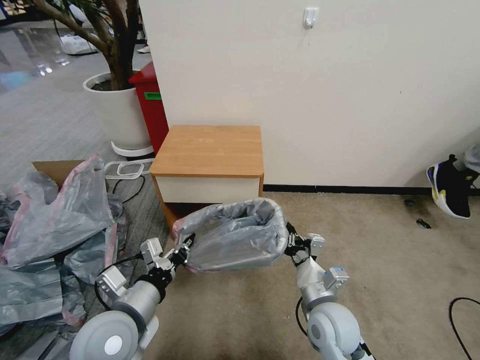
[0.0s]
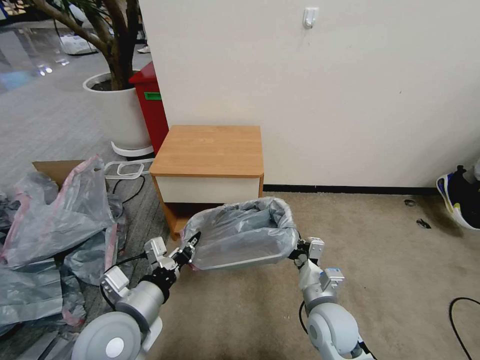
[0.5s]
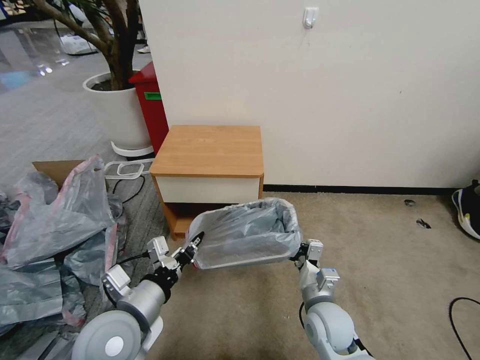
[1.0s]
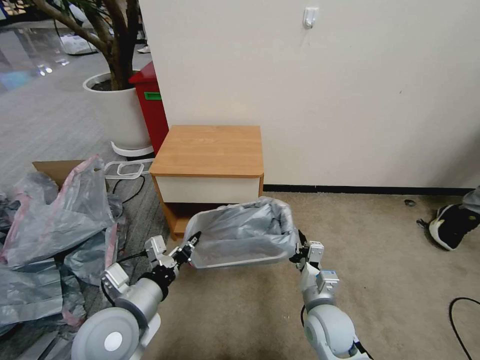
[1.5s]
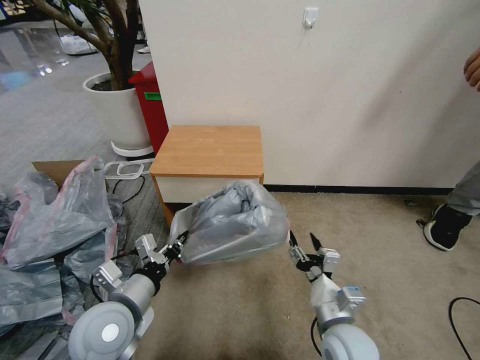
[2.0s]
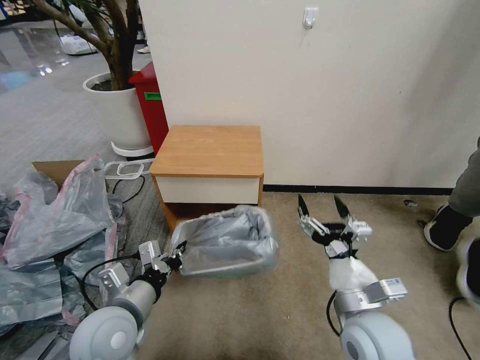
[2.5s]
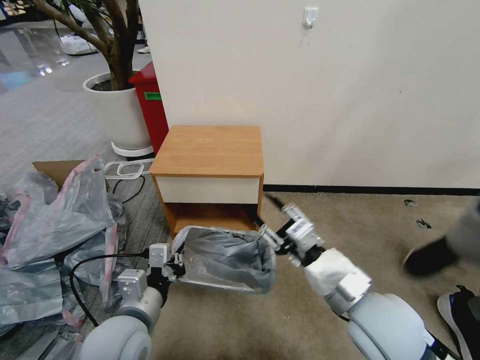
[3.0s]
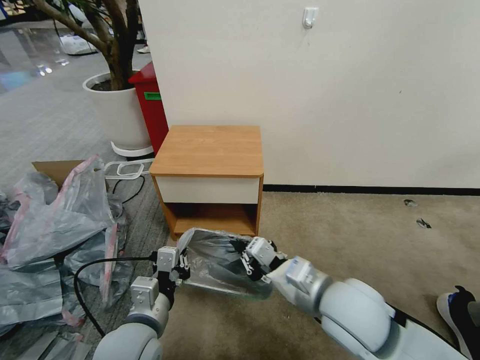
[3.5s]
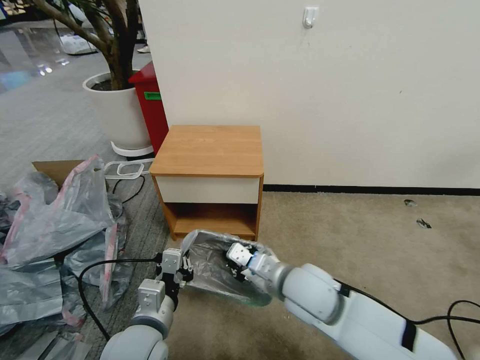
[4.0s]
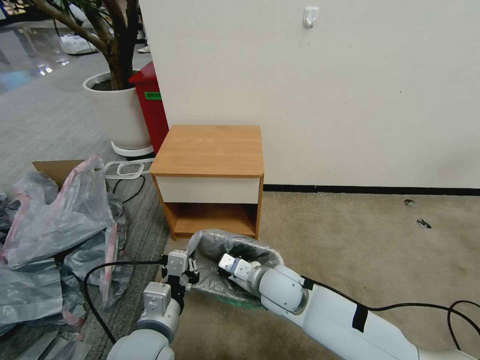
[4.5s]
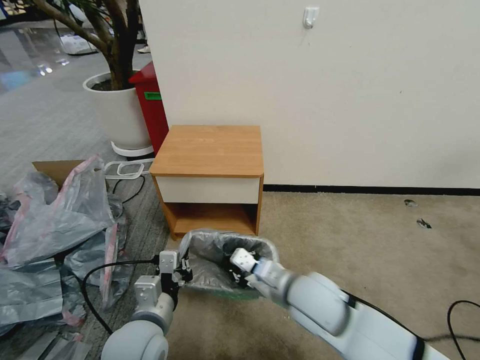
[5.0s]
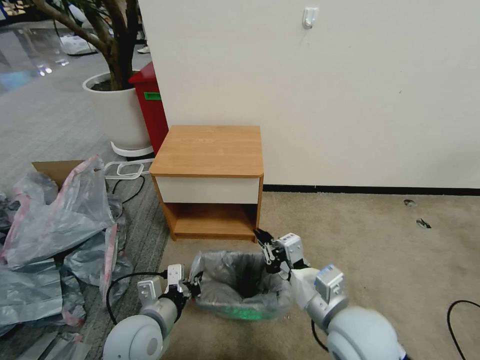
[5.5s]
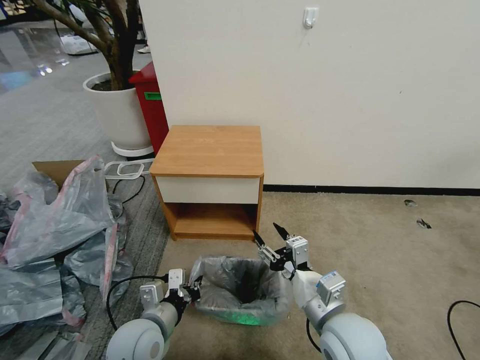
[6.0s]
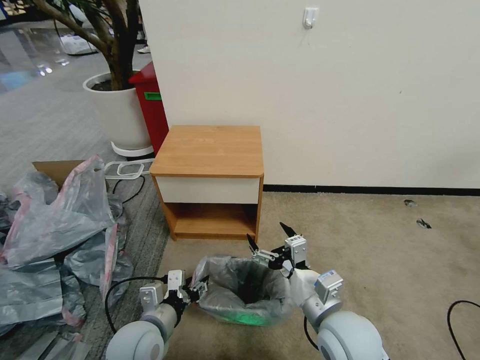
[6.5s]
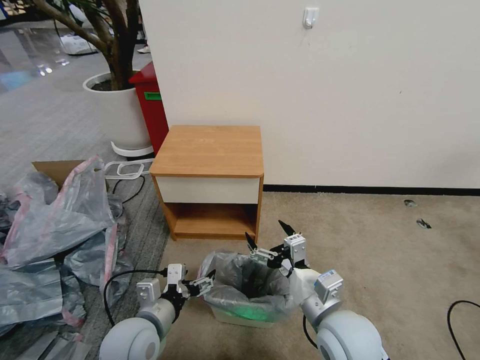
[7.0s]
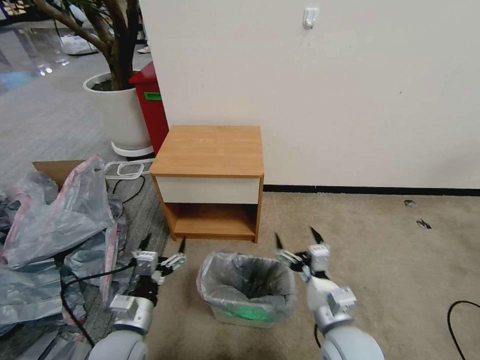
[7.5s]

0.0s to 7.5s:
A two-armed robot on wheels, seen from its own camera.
Task of the whole recording: Pick up the garbage bag from the table and place it over the trash can.
0.0s to 2.0s: The right gripper opens its fingers.
2.0s to 4.0s: The left gripper moves to the right, roughly 5 cm; the right gripper shifts about 15 cm to the left, forward and upward, and closes its fingers.
4.0s to 5.5s: The right gripper is displaced backward and to the right by roughly 10 cm, while the left gripper shifts by about 5 cm.
5.5s to 7.5s: The right gripper is displaced downward by approximately 10 cm, and opens its fingers. The left gripper ends up about 5 cm from where it was, and opens.

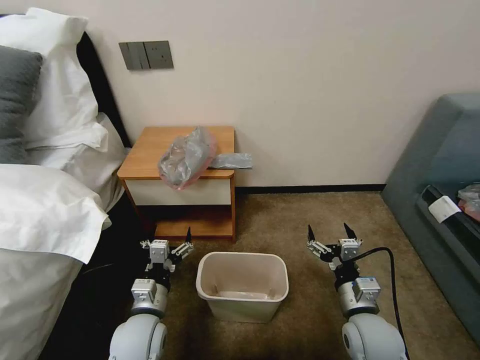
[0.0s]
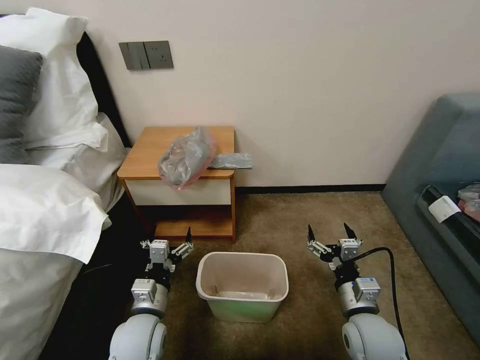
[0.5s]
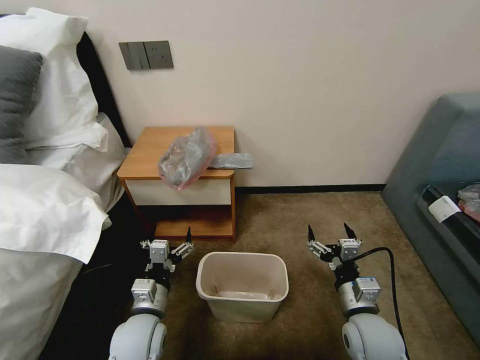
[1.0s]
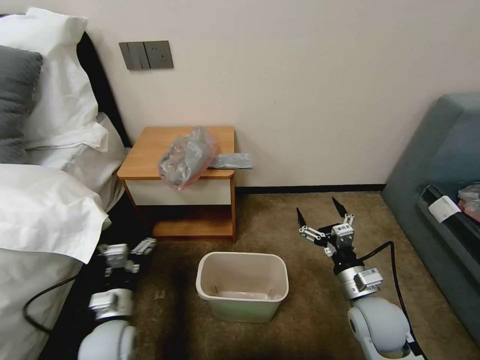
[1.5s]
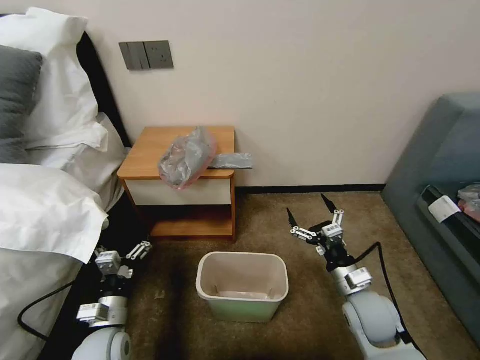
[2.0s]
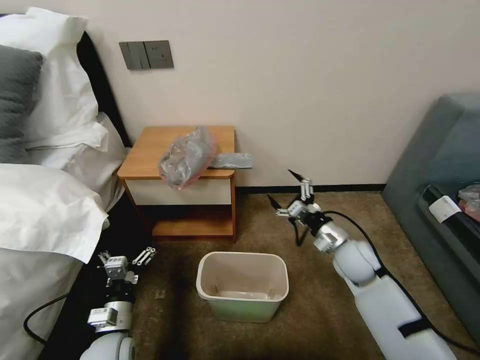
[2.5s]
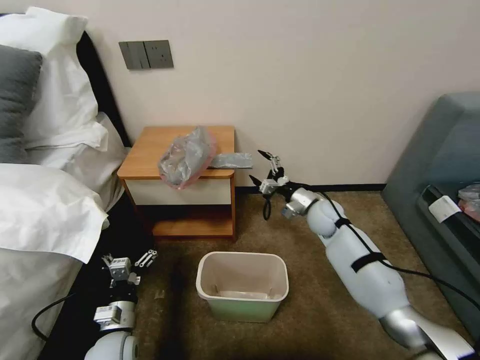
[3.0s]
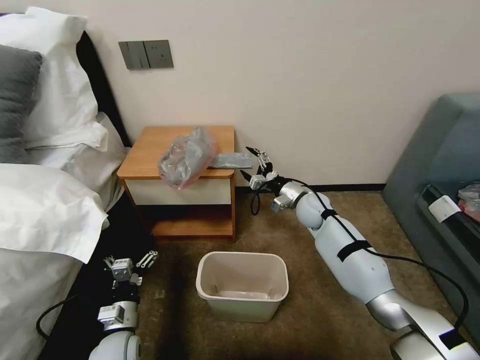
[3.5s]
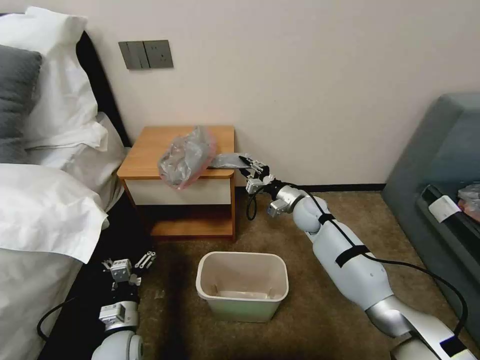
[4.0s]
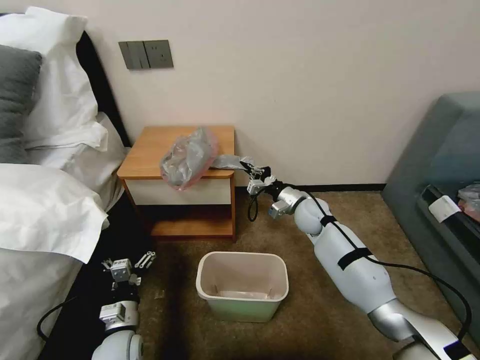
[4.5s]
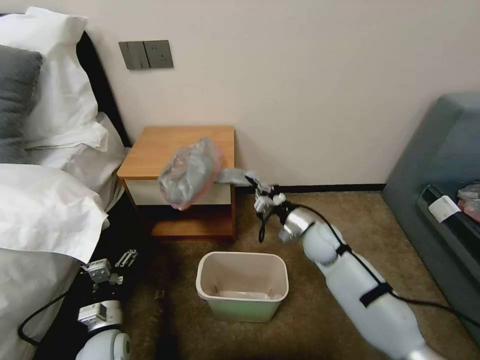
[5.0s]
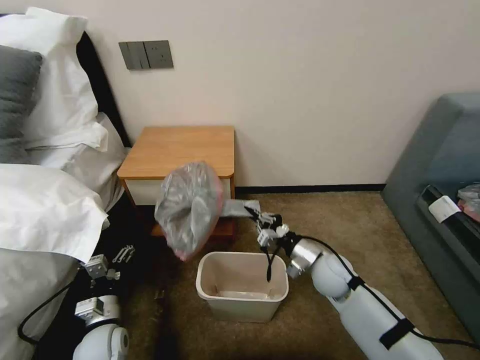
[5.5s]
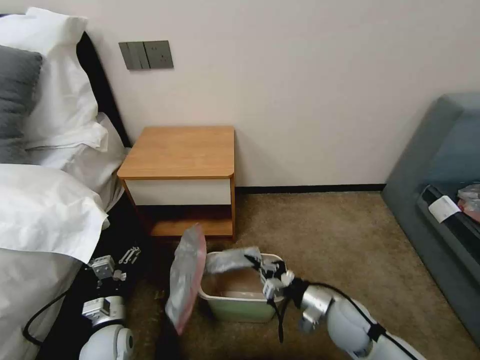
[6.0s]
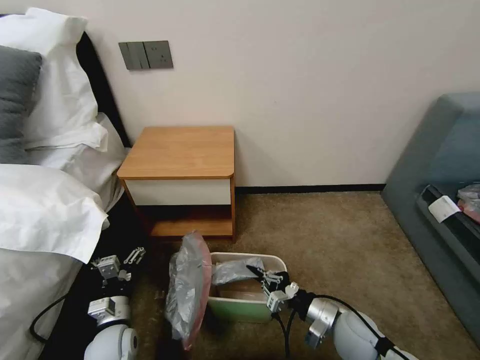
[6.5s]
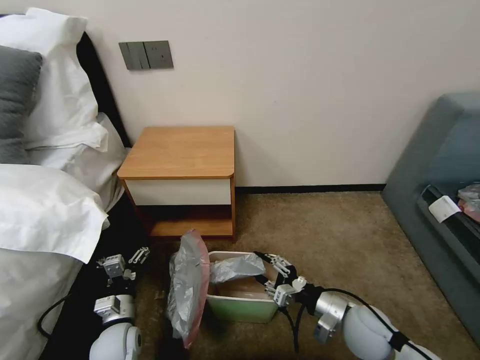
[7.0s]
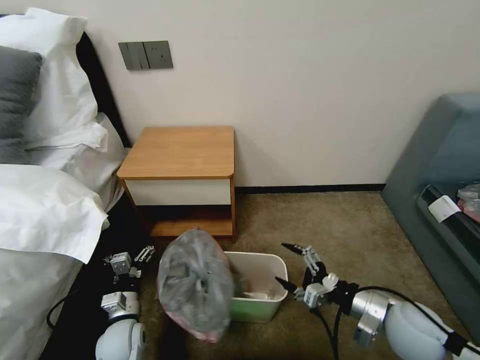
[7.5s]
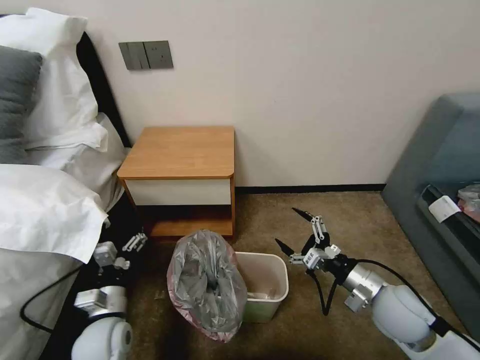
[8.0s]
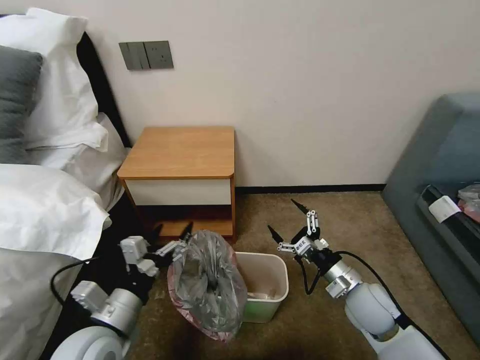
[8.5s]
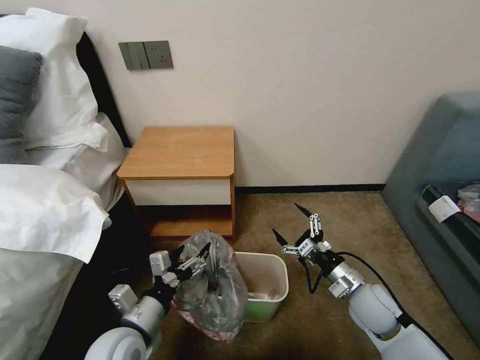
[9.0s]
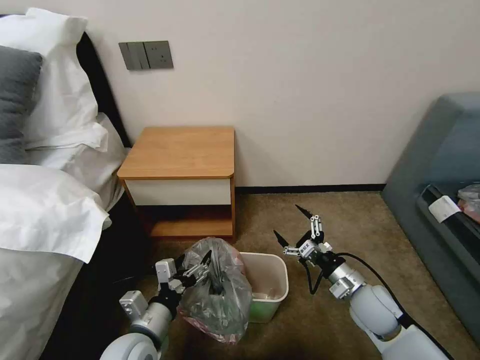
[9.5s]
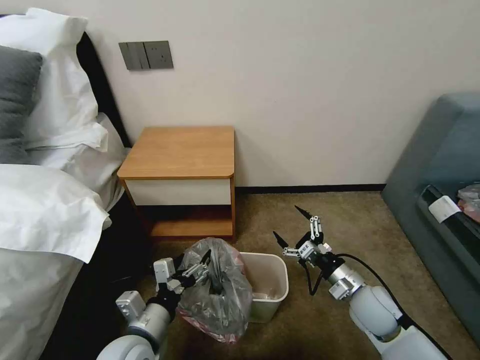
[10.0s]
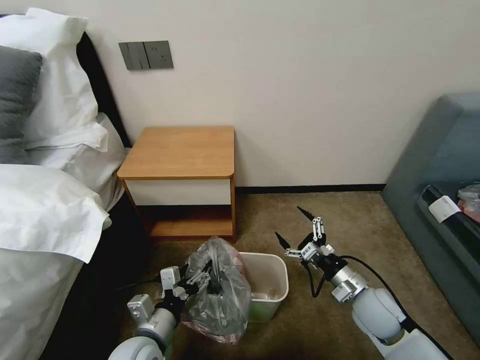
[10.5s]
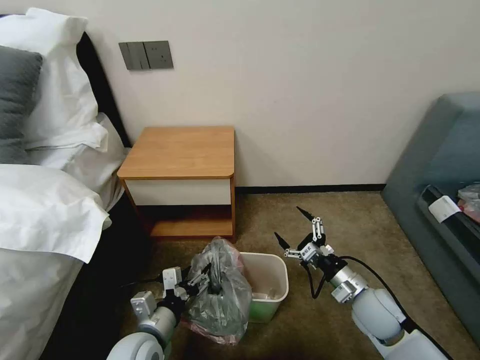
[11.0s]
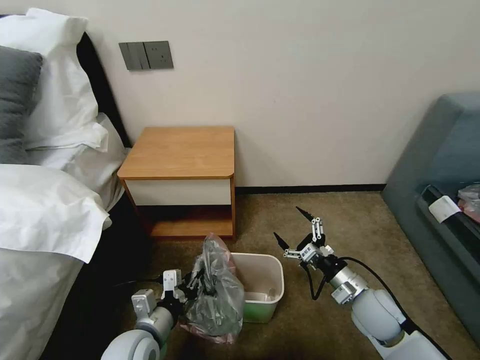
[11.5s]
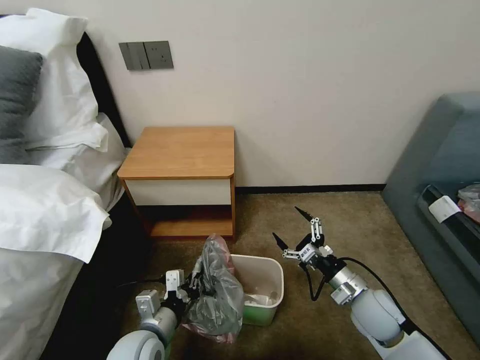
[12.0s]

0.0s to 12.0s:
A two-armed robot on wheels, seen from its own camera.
Task of the whole recording: Pick up the garbage bag from the table and place it over the trash can.
2.0s to 4.0s: The right gripper heads forward, covering approximately 25 cm, and closes.
4.0s to 6.0s: The right gripper travels backward by roughly 25 cm, and closes.
6.0s to 8.0s: The right gripper is displaced upward and to the right by about 10 cm, and opens its fingers, while the left gripper is displaced upward by about 5 cm.
8.0s to 10.0s: The right gripper shifts roughly 5 cm downward. The left gripper heads to the right, covering about 5 cm.
10.0s to 12.0s: The left gripper closes its fingers.

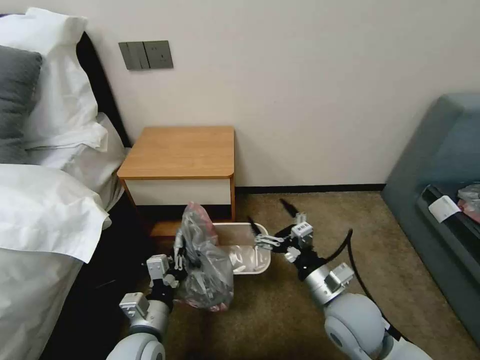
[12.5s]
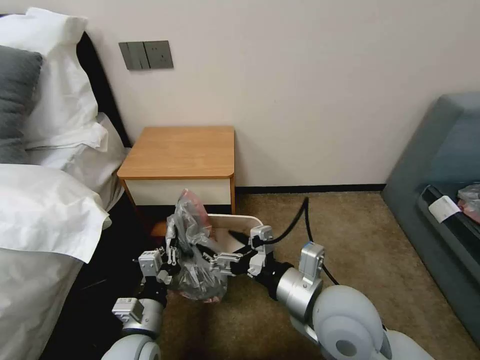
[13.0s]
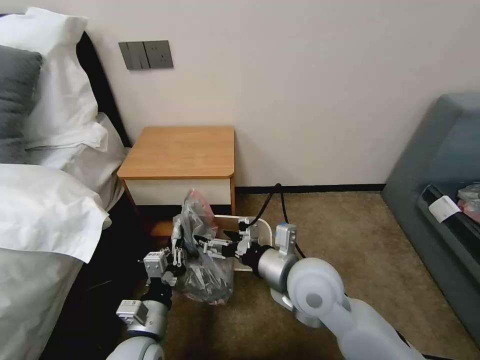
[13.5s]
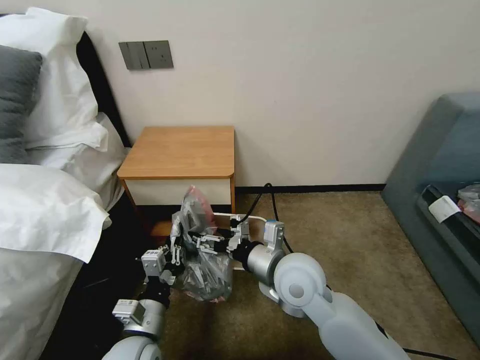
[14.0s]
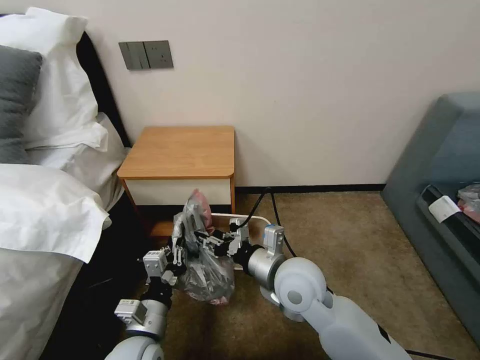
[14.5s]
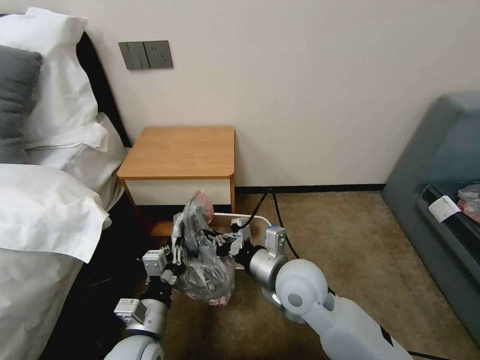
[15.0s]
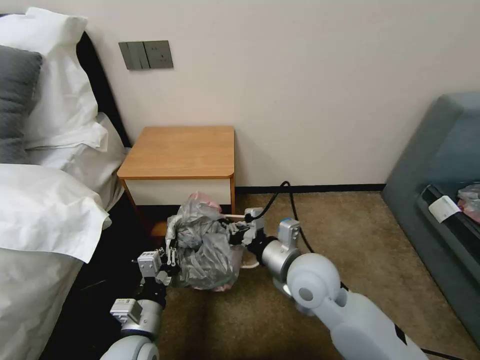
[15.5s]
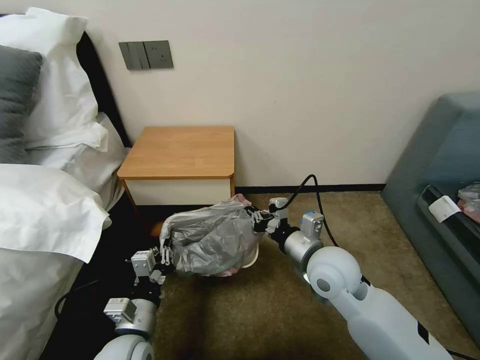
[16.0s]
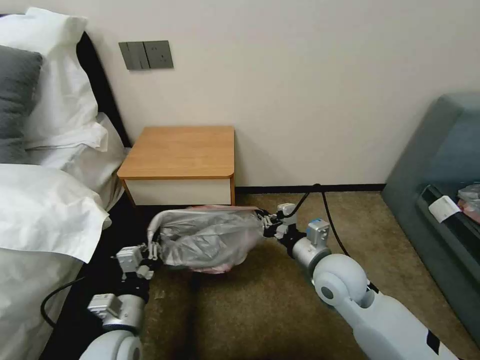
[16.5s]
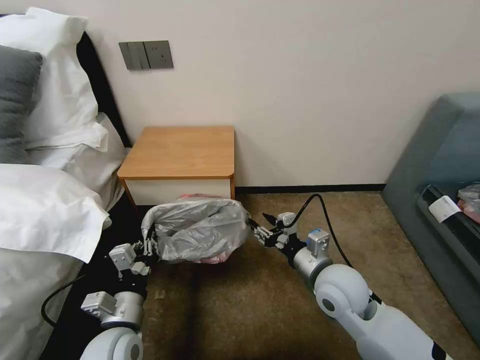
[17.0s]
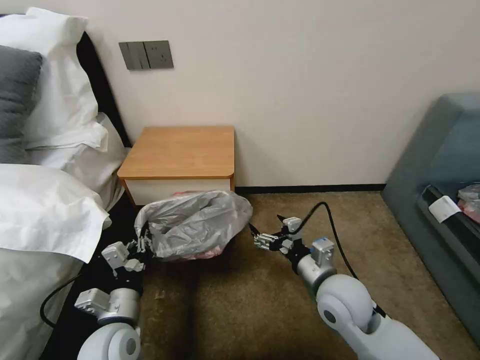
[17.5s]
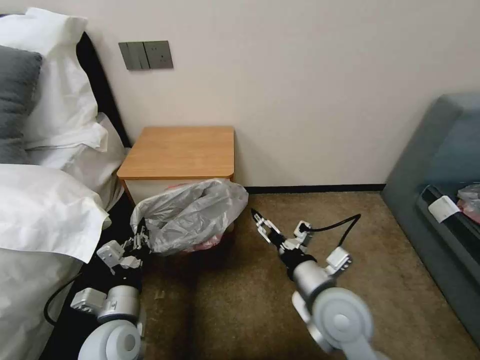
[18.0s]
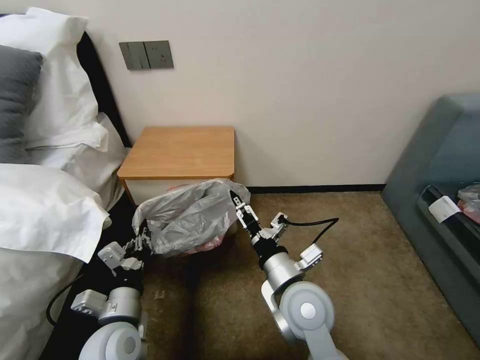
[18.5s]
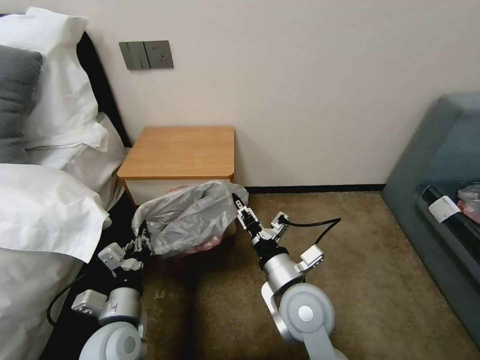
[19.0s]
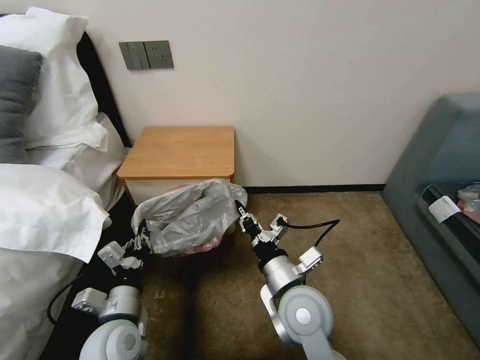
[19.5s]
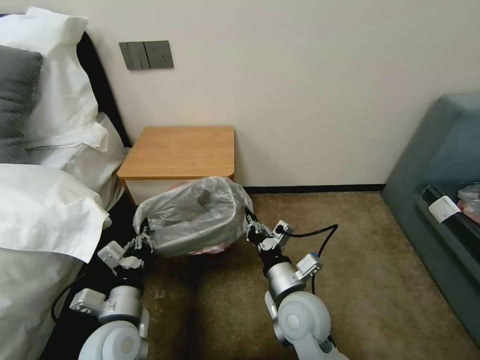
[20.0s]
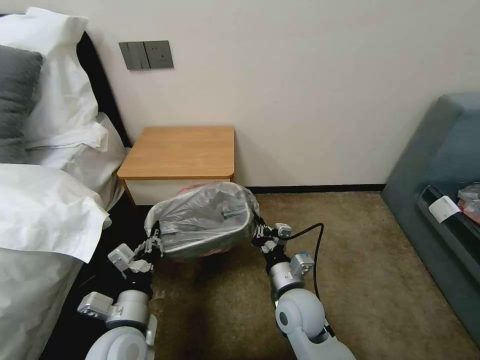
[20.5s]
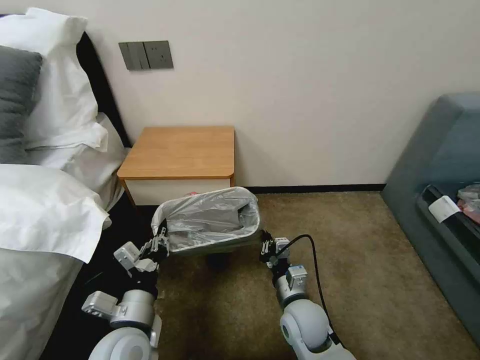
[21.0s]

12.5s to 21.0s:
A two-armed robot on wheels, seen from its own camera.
Task of the whole recording: Pick up the garbage bag from the table and place it over the trash can.
12.5s to 14.5s: The right gripper is displaced to the left by roughly 10 cm, and closes its fingers.
14.5s to 16.5s: The right gripper shifts approximately 10 cm to the right, and closes.
16.5s to 19.0s: The right gripper is displaced to the left and backward by some 10 cm, and opens up.
19.0s to 21.0s: The right gripper shifts roughly 10 cm downward, and closes its fingers.
